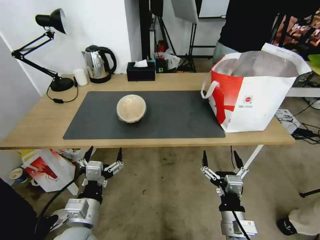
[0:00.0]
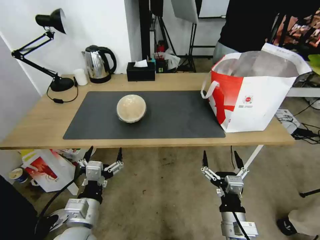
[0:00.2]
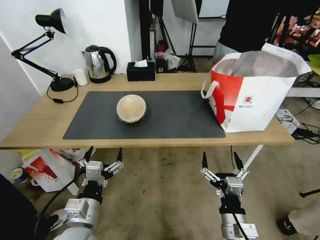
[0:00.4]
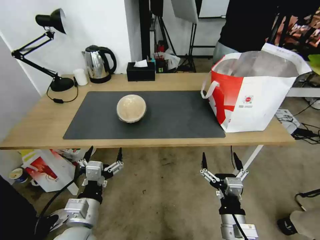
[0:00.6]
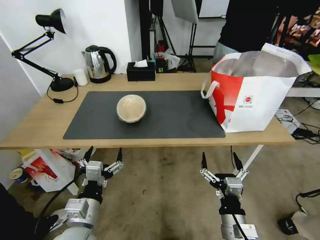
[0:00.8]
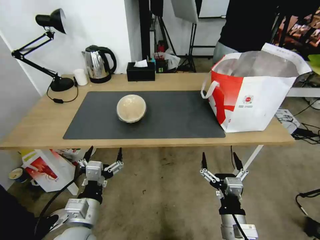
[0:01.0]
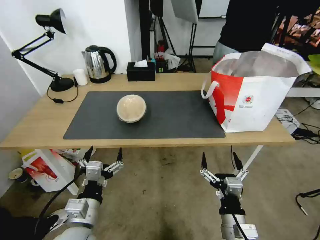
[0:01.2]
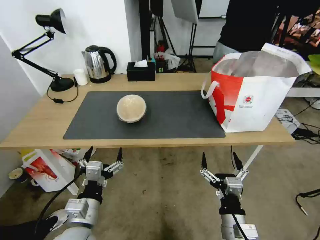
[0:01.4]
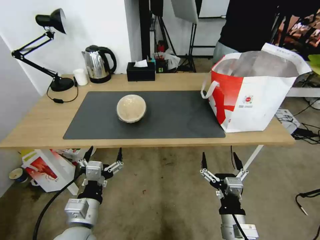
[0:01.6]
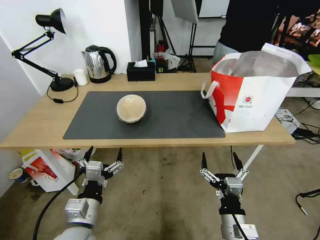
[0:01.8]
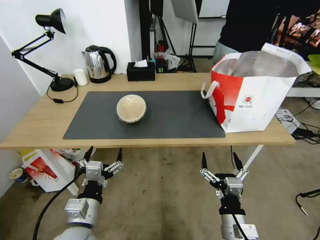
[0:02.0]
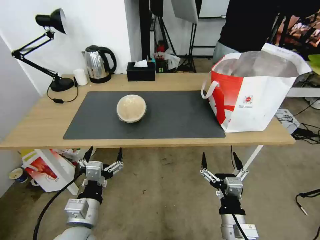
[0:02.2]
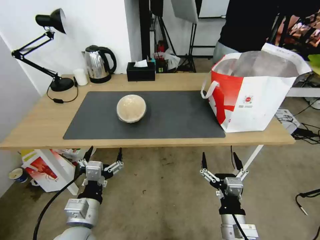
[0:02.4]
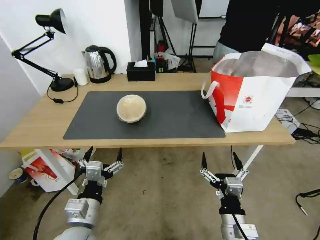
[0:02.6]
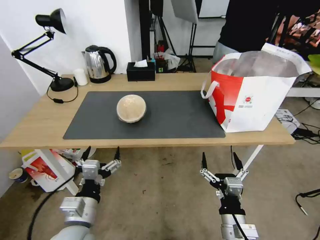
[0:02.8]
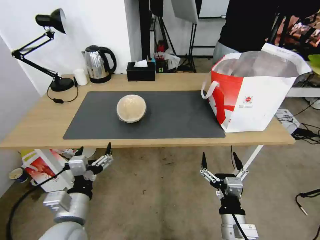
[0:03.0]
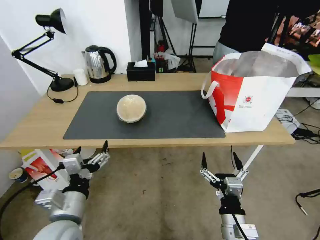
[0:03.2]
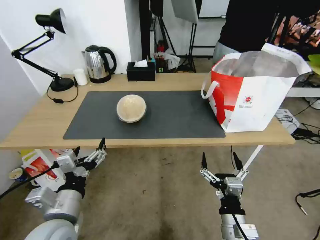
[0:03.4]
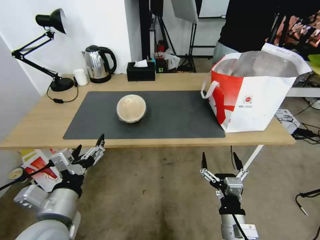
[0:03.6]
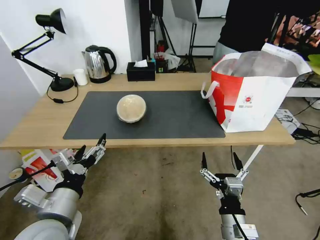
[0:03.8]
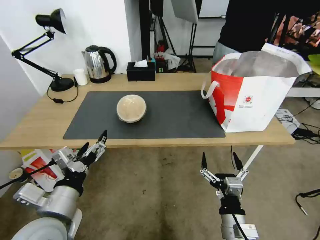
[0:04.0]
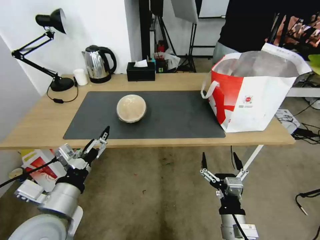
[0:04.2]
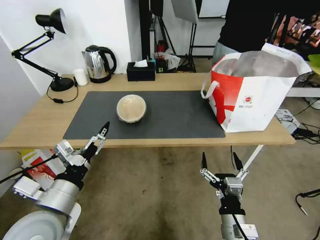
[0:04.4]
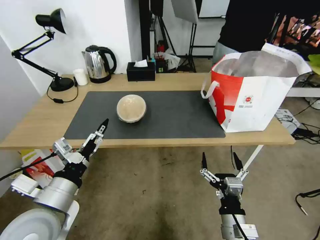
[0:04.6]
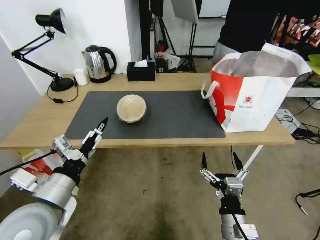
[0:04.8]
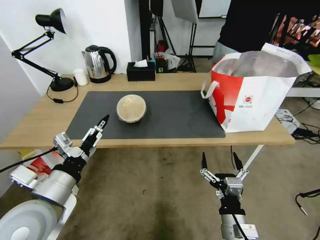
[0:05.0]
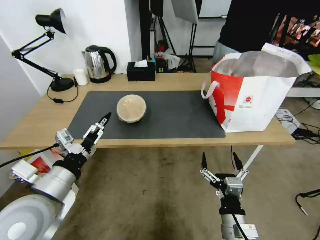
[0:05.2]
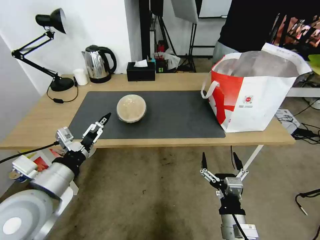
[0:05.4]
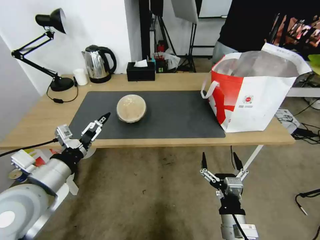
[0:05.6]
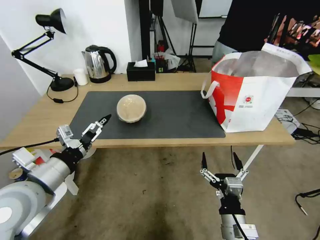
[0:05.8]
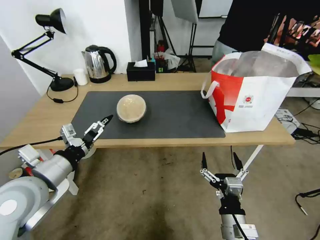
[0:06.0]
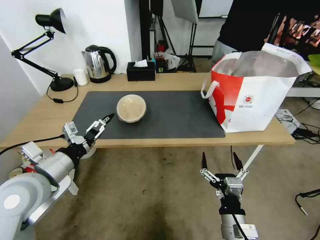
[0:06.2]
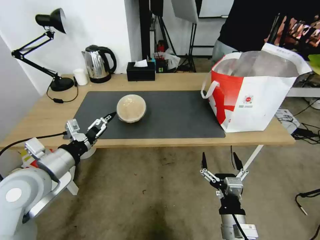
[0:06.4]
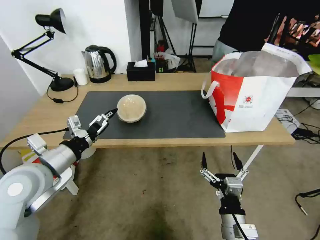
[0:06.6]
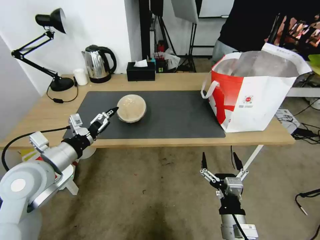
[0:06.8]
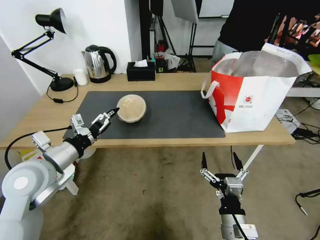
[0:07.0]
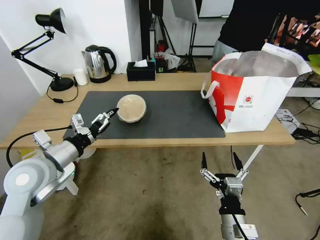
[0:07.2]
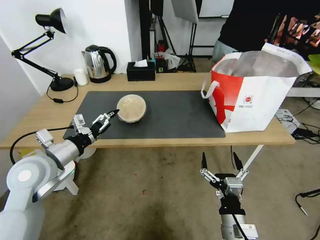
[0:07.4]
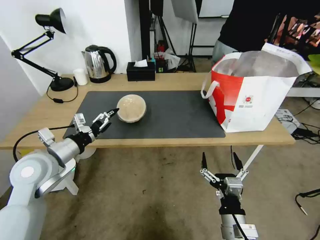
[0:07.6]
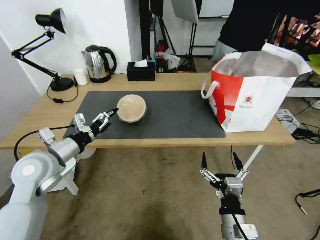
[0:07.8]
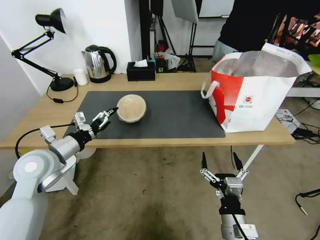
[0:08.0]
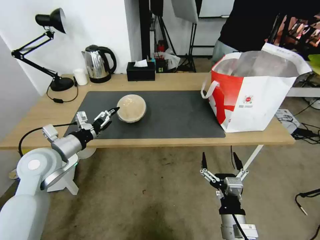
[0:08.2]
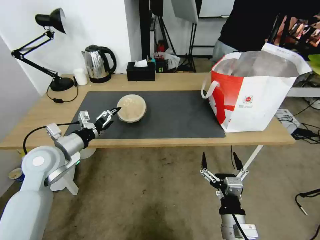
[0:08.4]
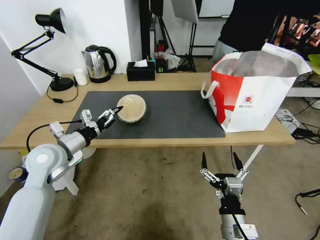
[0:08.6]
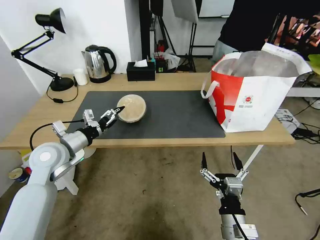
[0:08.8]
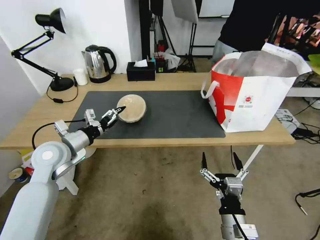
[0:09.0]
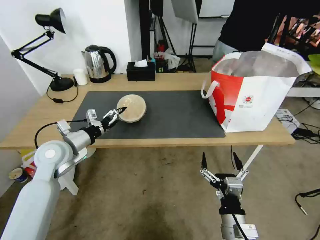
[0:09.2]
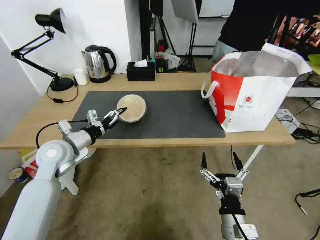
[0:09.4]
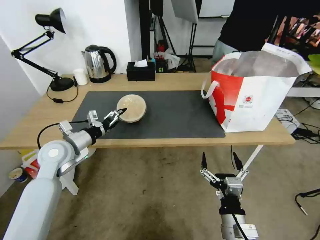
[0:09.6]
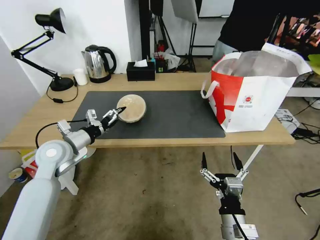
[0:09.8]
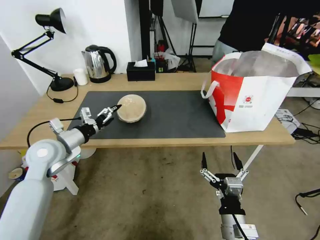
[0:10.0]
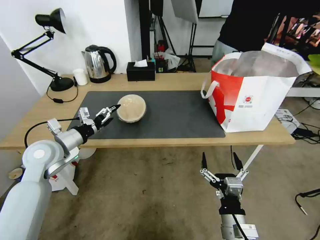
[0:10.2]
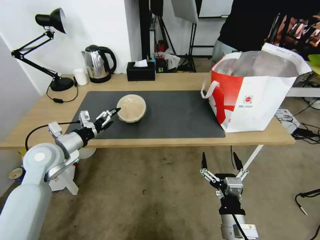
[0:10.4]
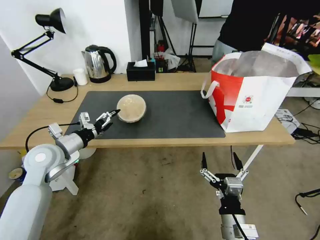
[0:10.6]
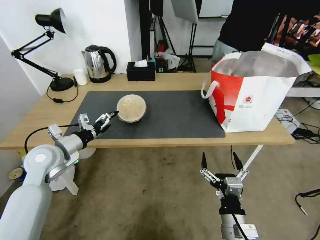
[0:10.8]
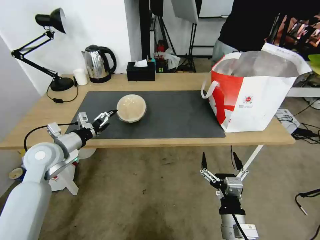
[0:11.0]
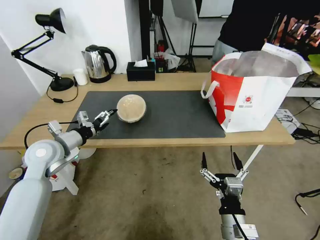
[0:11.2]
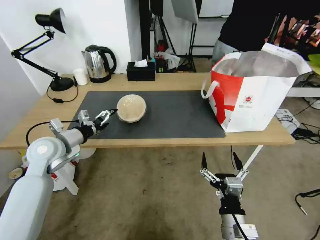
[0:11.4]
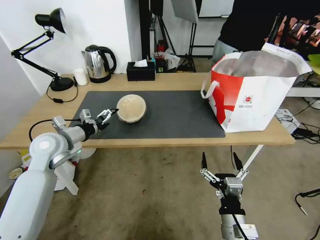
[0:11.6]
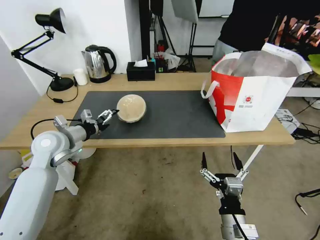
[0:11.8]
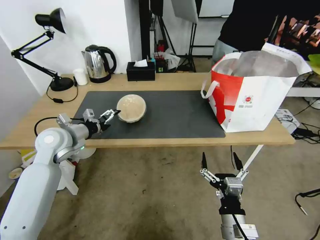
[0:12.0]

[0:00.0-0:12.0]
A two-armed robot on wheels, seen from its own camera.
Task of the whole recording: Pick up the trash from the table and place it into the takeout bag.
0:00.0 to 0:01.6: Both grippers stay about where they are.
0:01.6 to 0:03.0: There are only small adjustments of the grippers.
0:03.0 to 0:04.4: The left gripper is displaced upward by some 5 cm.
0:04.4 to 0:06.0: The left gripper moves forward, approximately 5 cm.
0:06.0 to 0:07.6: The left gripper heads forward, covering about 5 cm.
0:07.6 to 0:09.0: The left gripper is displaced forward by roughly 5 cm.
0:09.0 to 0:12.0: The grippers make only small movements.

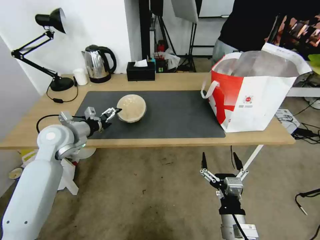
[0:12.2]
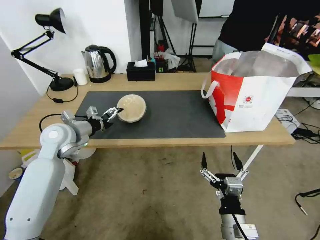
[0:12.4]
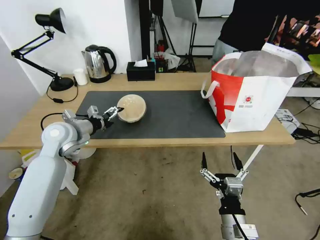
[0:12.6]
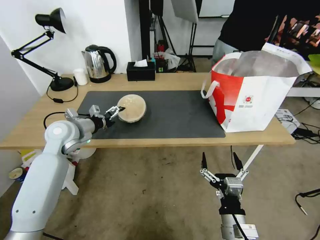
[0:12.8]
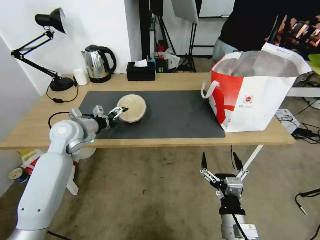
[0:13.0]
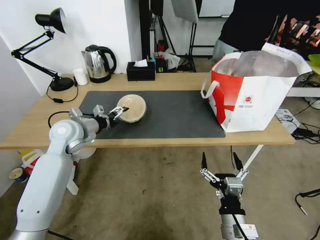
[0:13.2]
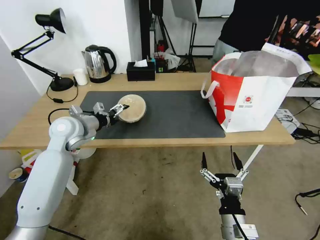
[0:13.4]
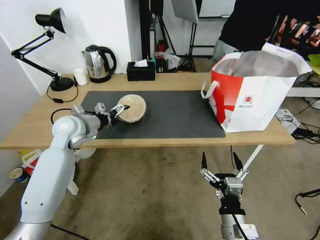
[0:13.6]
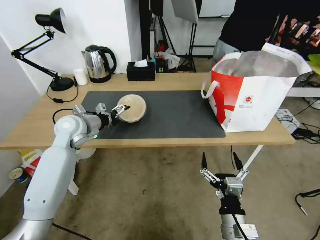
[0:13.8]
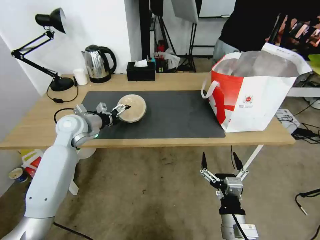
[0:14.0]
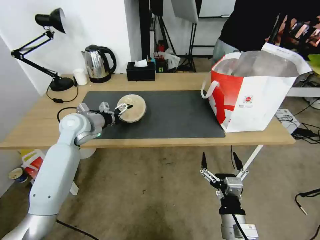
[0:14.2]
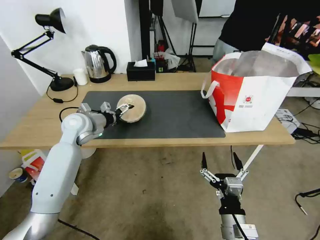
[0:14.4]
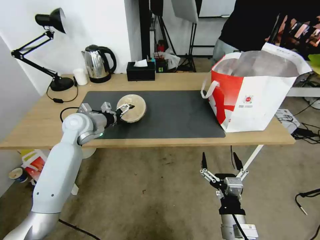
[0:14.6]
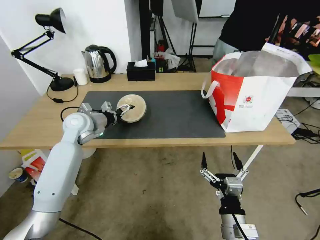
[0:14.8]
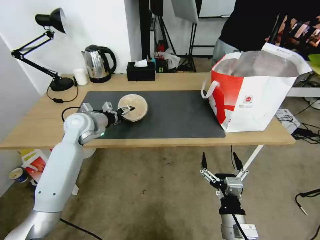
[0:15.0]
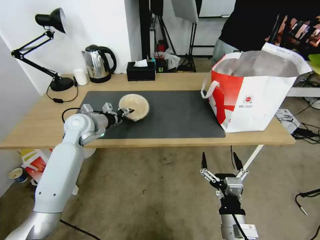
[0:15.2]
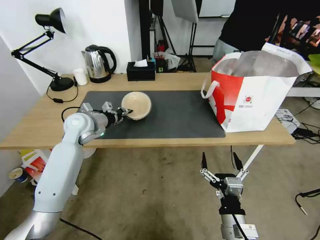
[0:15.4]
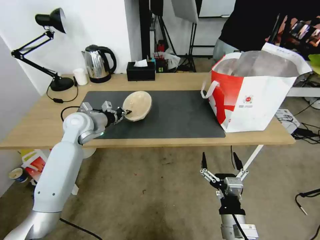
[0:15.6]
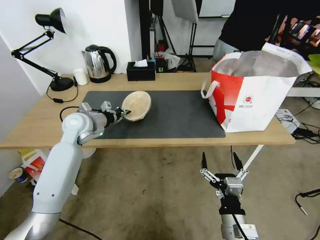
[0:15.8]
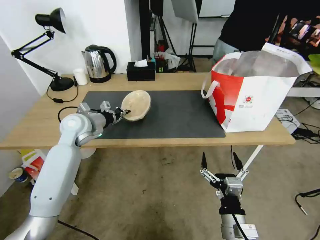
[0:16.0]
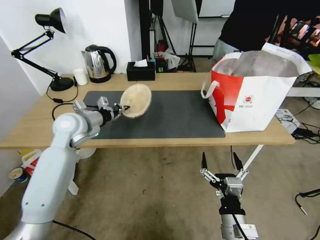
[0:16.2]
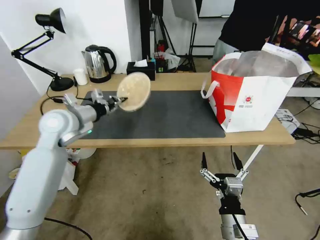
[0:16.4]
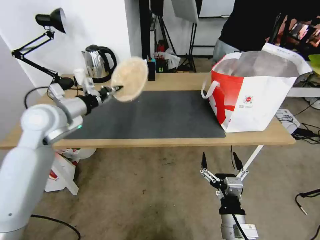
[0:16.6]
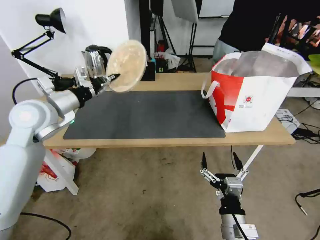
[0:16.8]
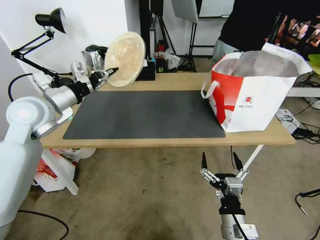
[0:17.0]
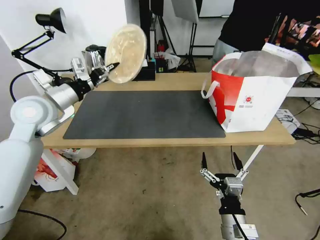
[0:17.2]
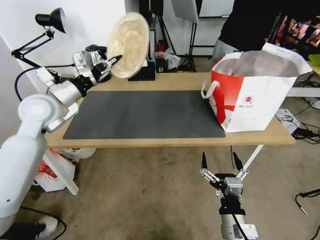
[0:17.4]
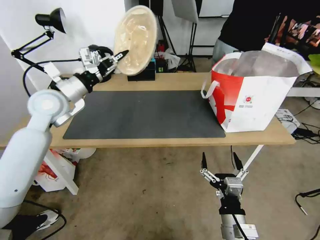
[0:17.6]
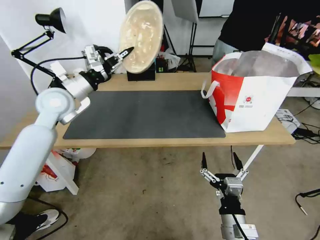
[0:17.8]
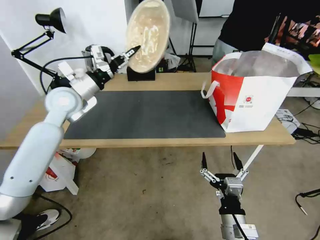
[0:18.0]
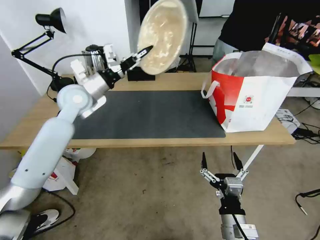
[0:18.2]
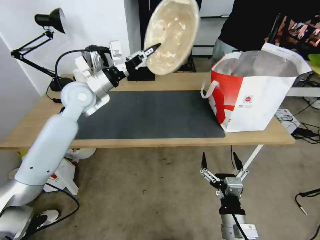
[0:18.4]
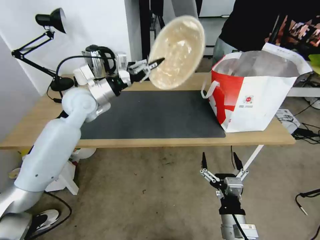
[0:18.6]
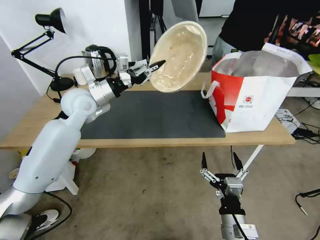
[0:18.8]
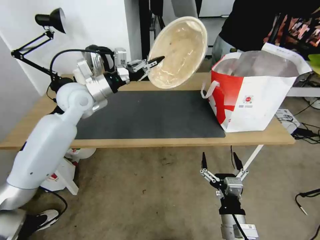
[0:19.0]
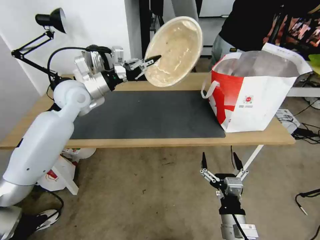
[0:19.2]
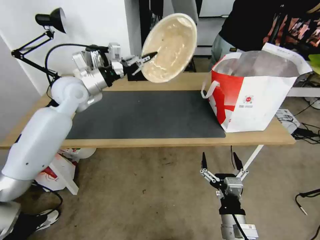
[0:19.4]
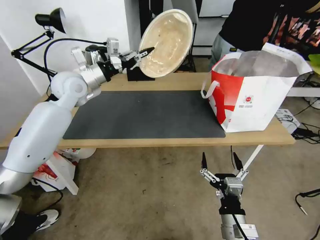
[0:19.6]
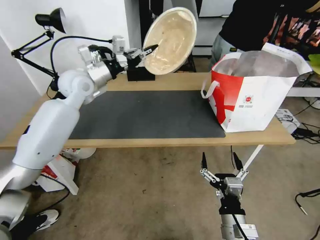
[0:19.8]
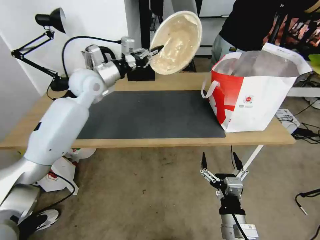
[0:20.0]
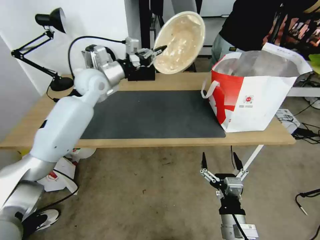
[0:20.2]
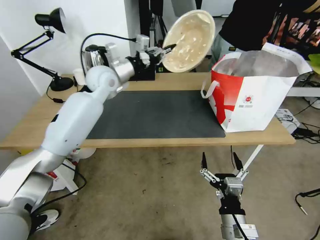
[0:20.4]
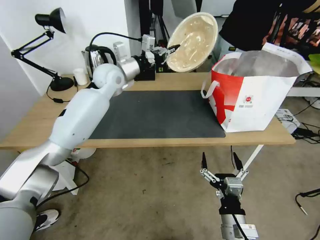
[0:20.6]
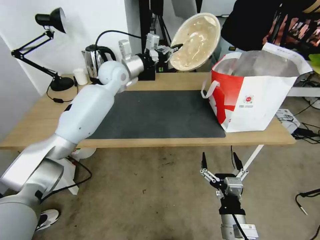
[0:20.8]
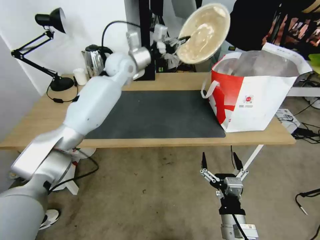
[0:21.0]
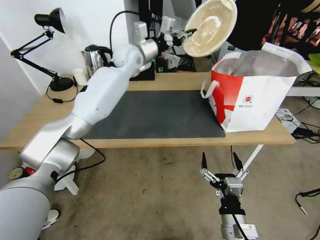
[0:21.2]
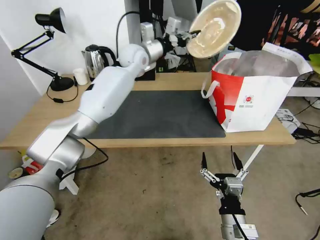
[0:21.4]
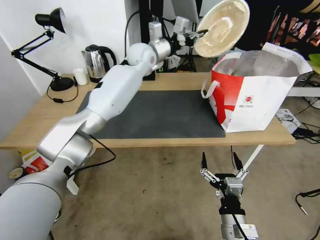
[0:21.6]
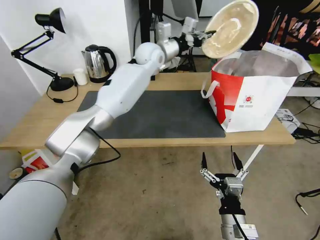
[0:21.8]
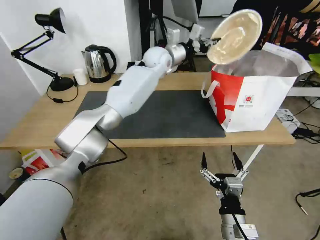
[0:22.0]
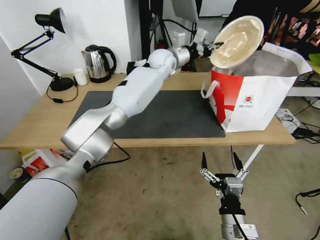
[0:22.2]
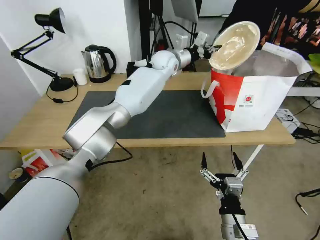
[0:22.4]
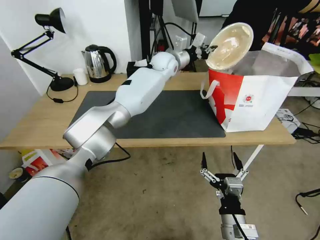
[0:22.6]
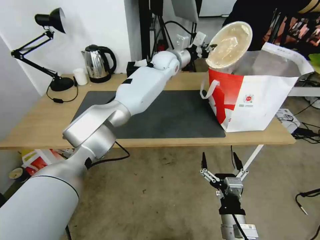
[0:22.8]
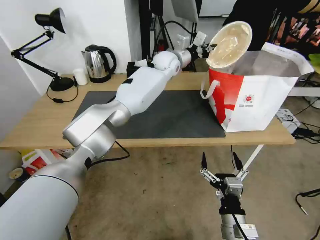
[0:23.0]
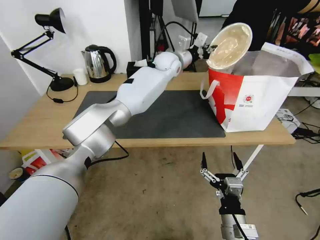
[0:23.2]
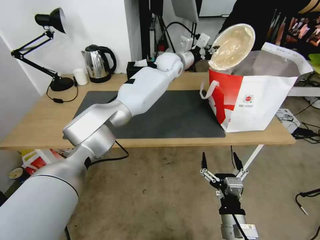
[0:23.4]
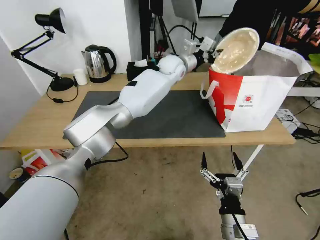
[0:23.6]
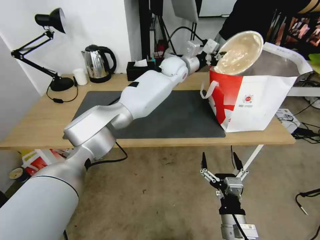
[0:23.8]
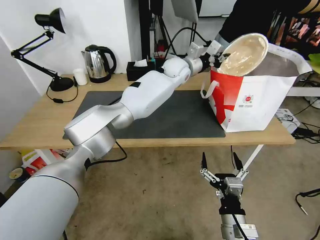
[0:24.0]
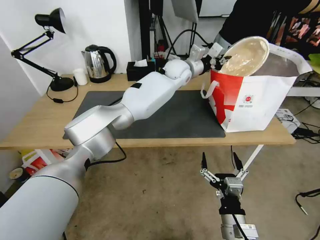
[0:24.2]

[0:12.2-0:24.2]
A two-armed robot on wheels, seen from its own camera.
Task of the whole recording: Pick up the trash from the table and place it into the takeout bag.
0:12.2 to 0:13.8: The left gripper ends up some 5 cm from where it was.
0:13.8 to 0:15.2: The left gripper closes its fingers.
0:15.2 to 0:16.6: The left gripper shifts about 15 cm upward and backward, and closes up.
0:16.6 to 0:18.2: The left gripper heads forward, covering some 10 cm.
0:18.2 to 0:19.8: The left gripper shifts by approximately 5 cm.
0:19.8 to 0:21.2: The left gripper travels to the right and forward by about 20 cm.
0:21.2 to 0:22.6: The left gripper travels to the right by roughly 10 cm.
0:22.6 to 0:24.2: The left gripper changes place by approximately 5 cm.
